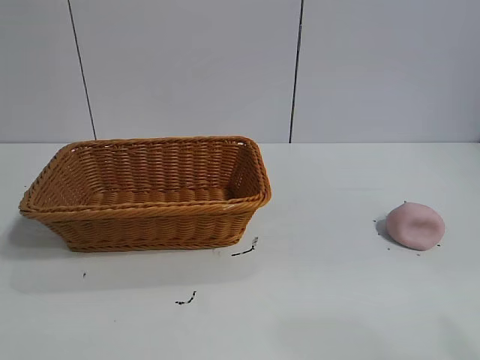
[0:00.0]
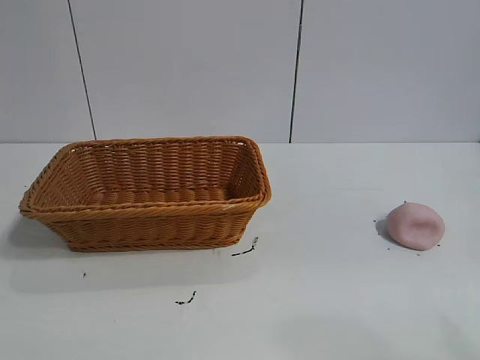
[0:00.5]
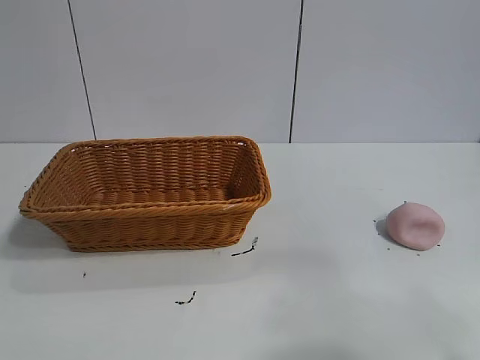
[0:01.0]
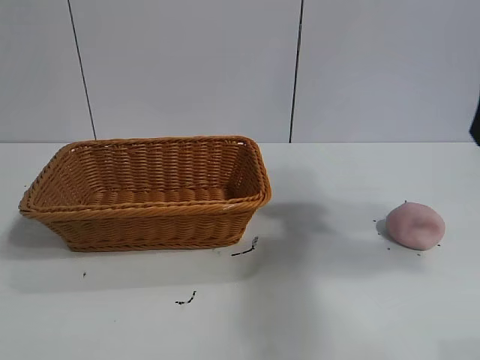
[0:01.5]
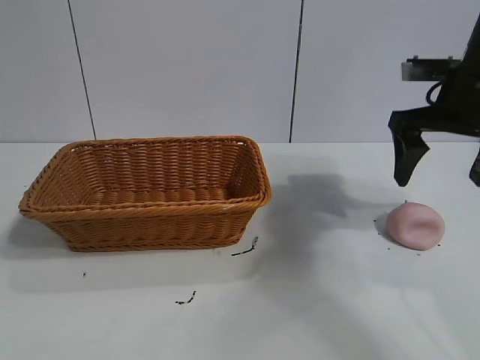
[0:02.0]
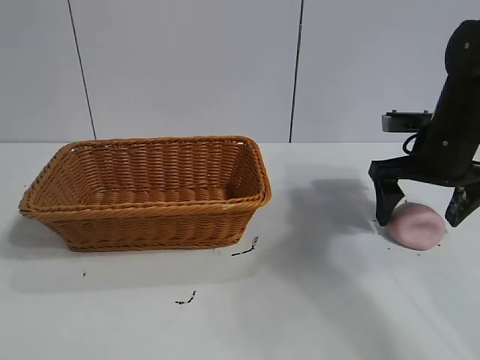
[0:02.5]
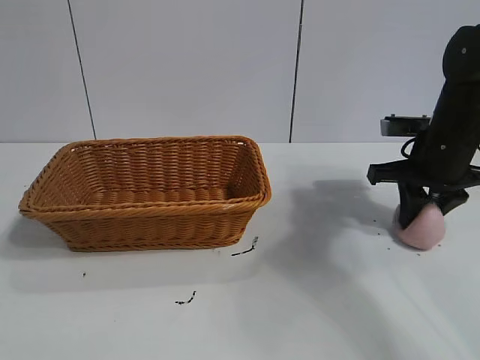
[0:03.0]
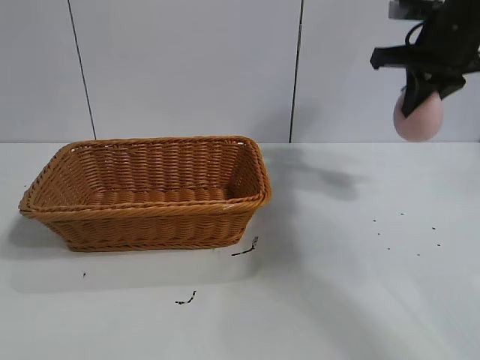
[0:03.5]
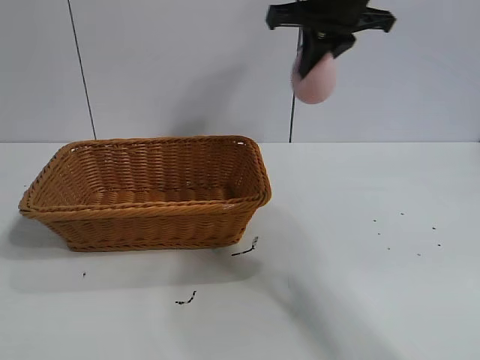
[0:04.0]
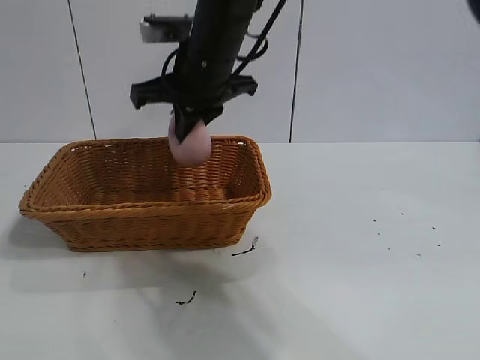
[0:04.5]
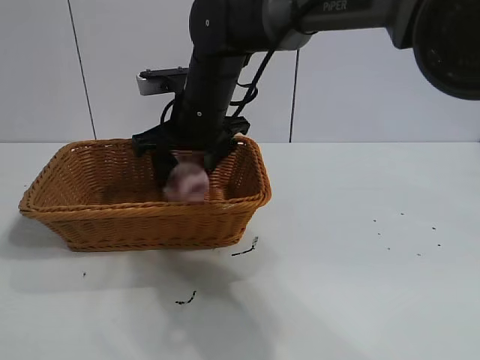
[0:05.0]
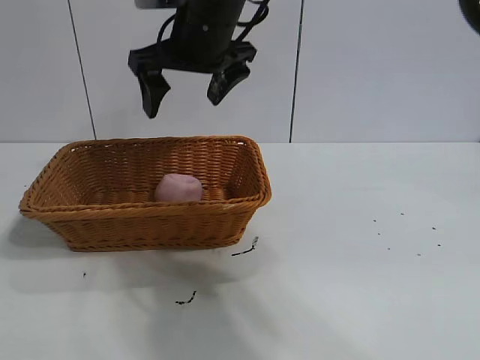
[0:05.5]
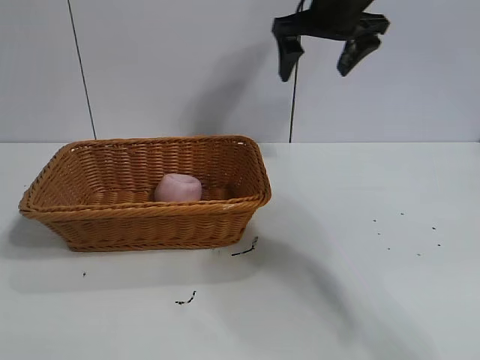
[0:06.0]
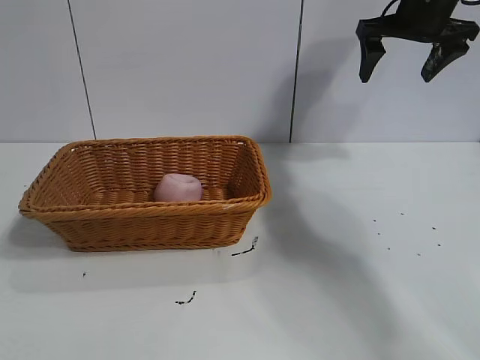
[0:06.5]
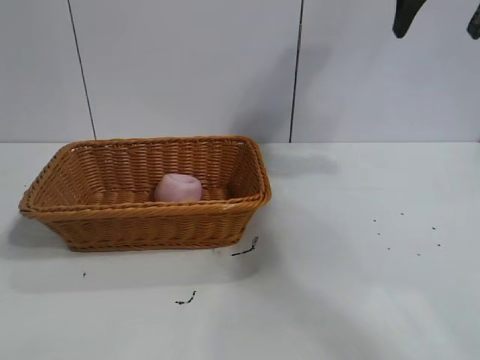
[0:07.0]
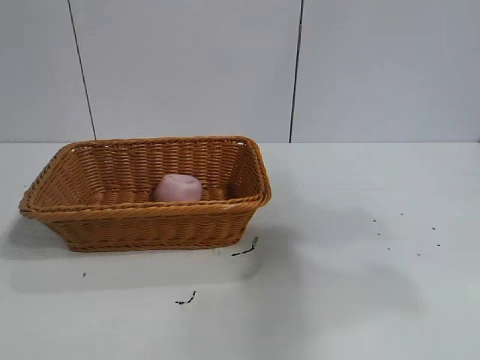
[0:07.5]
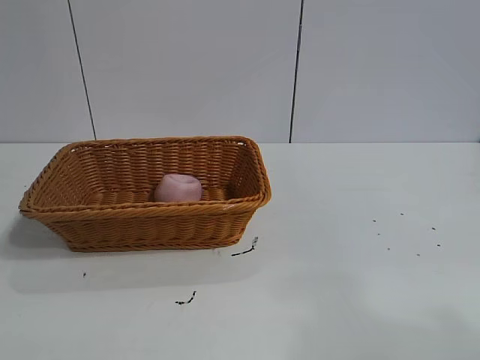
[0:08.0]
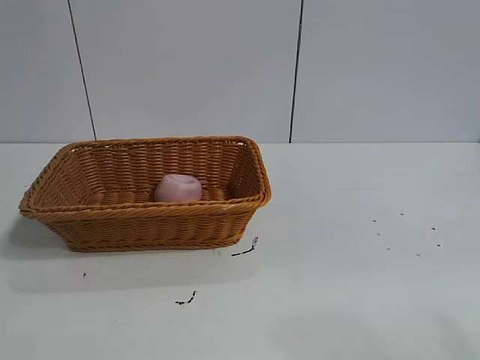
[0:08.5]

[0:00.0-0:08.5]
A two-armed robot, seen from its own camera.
Task of the whole recording: pick up the peach and put it into the basket.
Step, 0:01.0 to 0:03.0: Grasp the peach with right gripper.
Step, 0:03.5 to 0:05.0: Place the peach in the basket with right gripper.

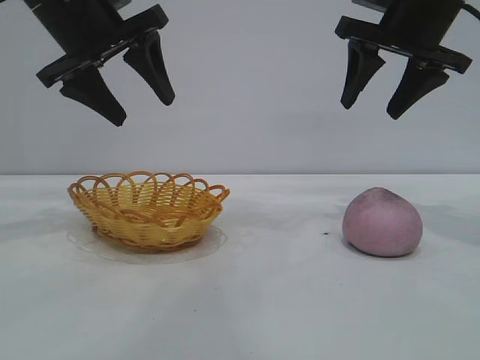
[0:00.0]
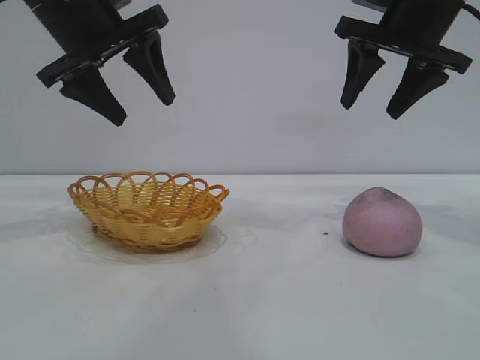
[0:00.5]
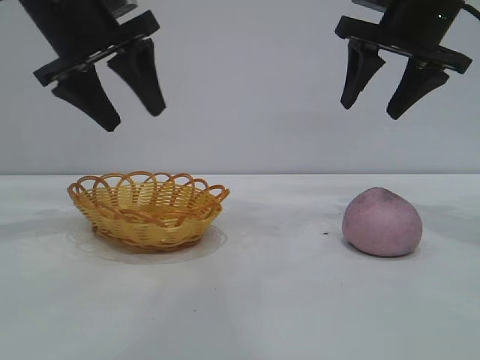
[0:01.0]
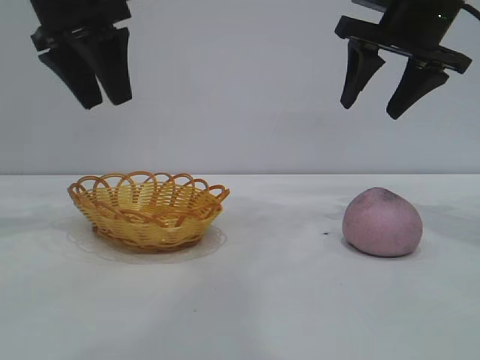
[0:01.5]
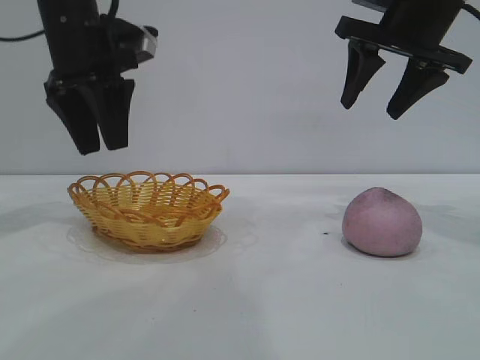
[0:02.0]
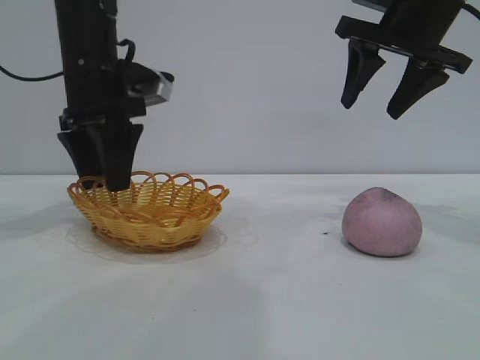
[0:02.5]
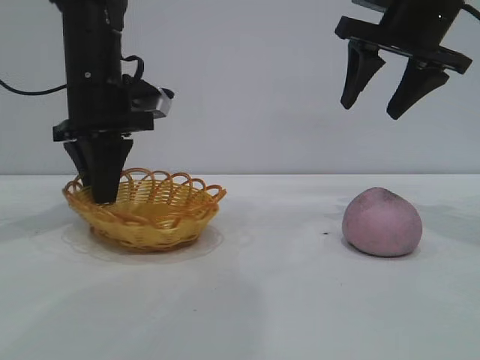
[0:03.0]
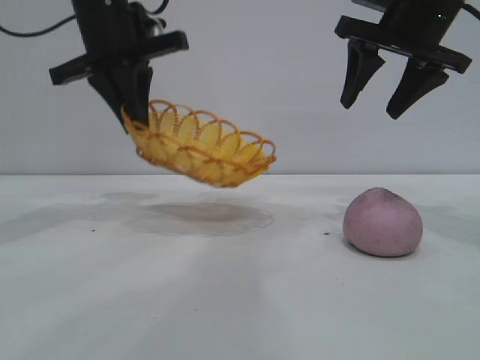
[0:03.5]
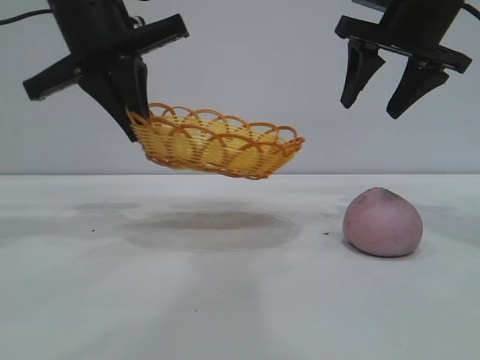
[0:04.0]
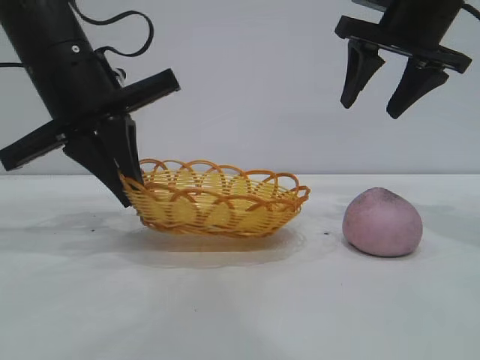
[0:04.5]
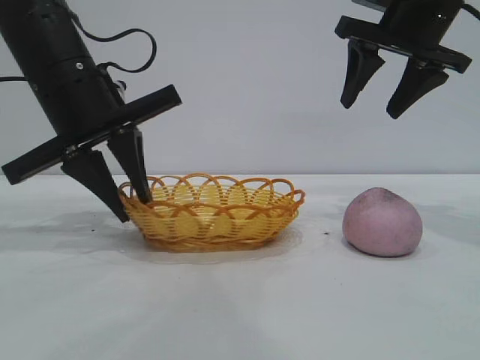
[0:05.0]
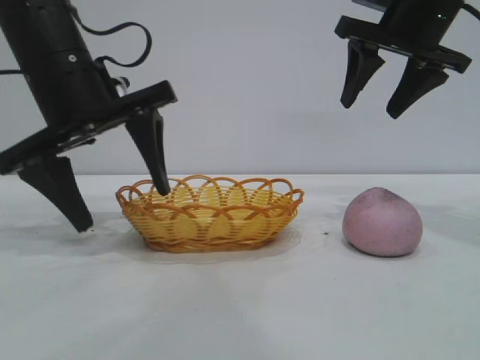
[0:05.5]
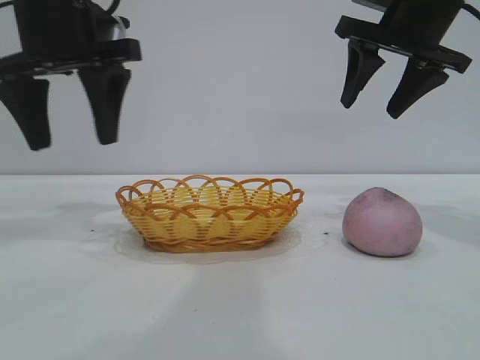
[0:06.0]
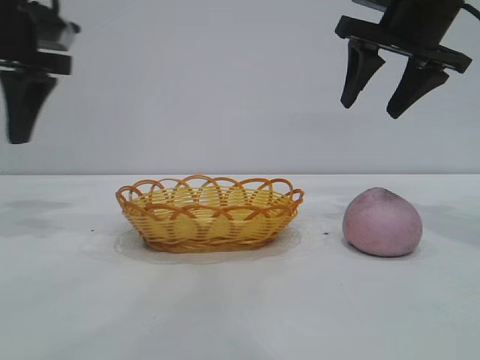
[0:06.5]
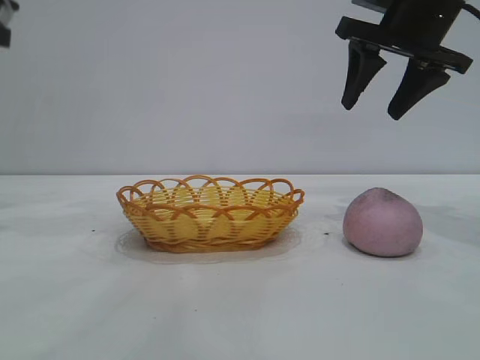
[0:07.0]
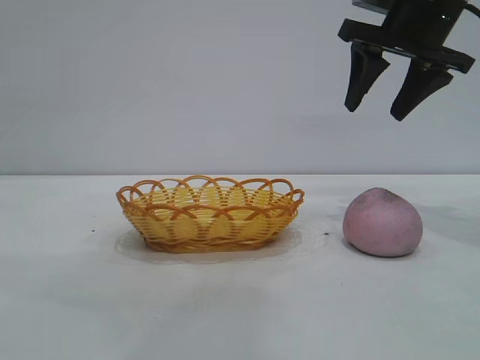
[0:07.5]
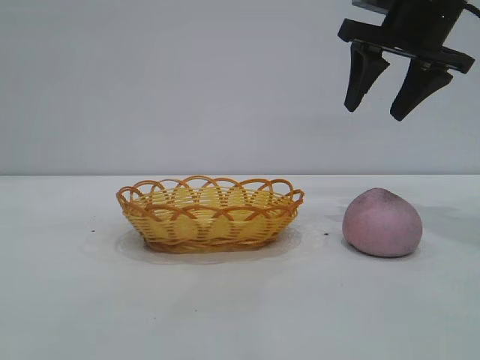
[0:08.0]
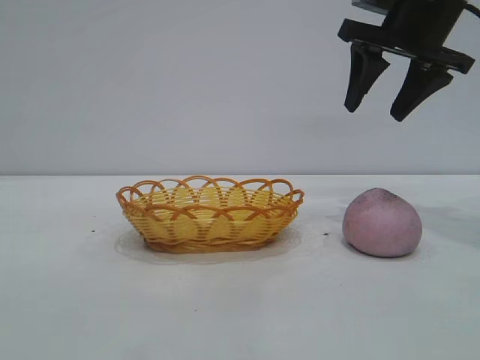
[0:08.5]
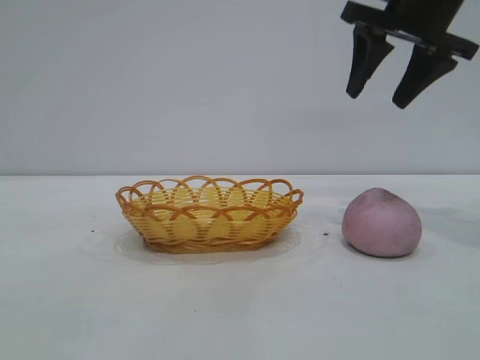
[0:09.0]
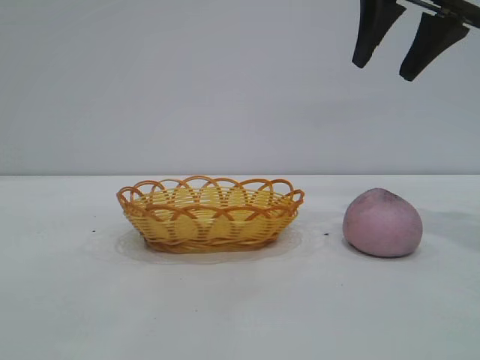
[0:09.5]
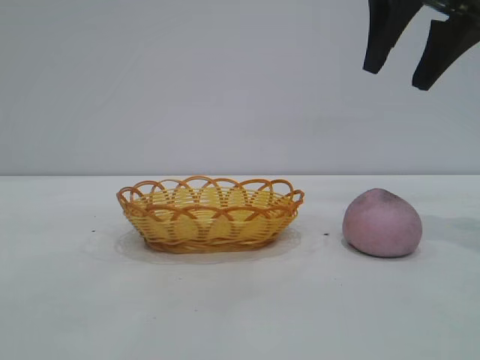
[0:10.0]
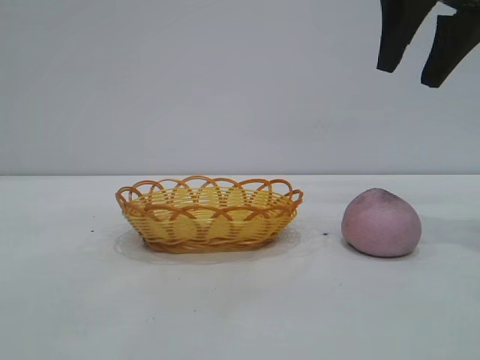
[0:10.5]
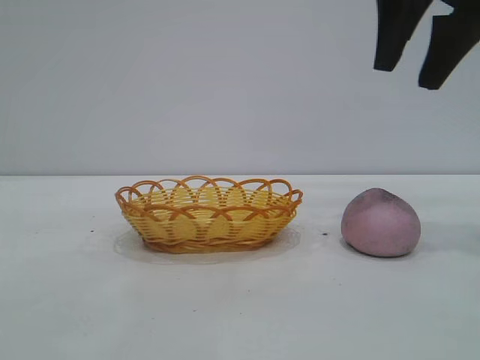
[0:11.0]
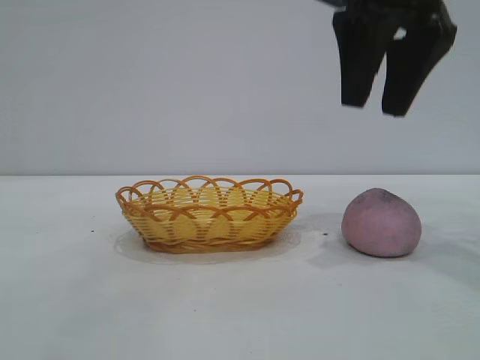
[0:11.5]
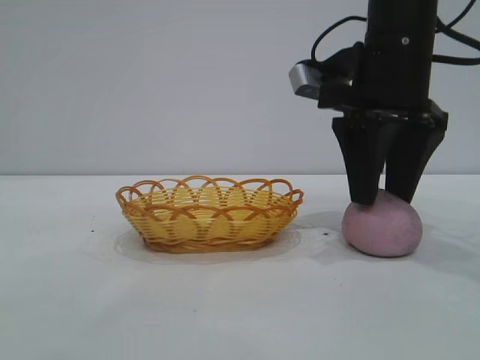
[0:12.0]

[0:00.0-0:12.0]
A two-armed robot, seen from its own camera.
Task of the whole recording: pick up the peach and put it into the basket.
Step, 0:00.0 to 0:05.5: Move the basket to the center of view.

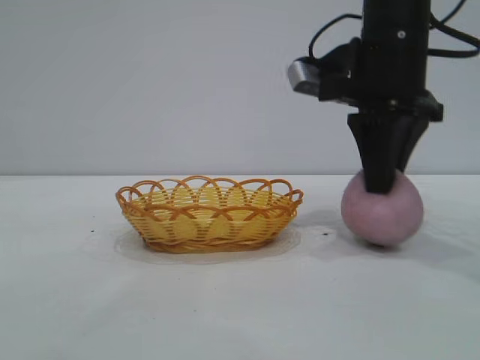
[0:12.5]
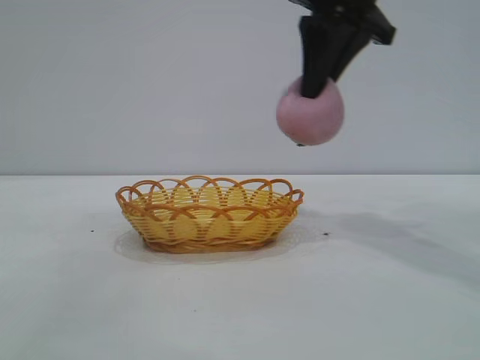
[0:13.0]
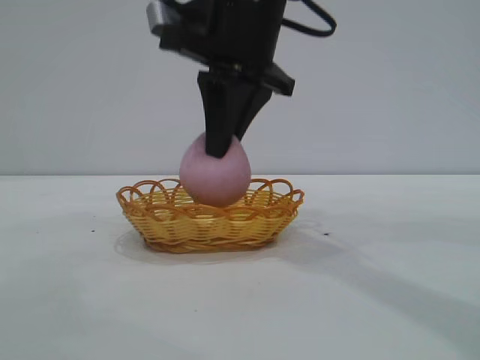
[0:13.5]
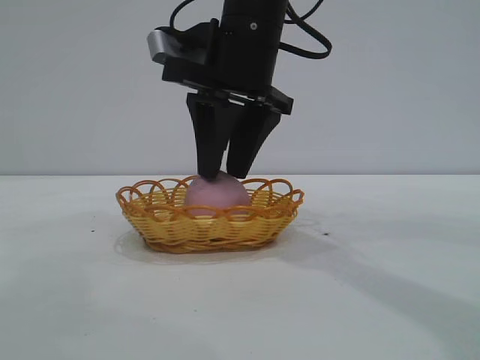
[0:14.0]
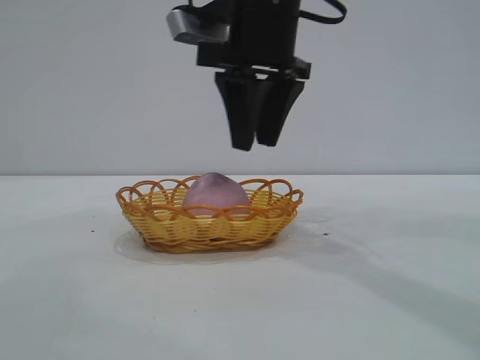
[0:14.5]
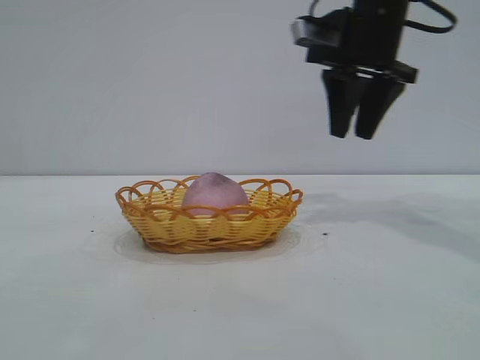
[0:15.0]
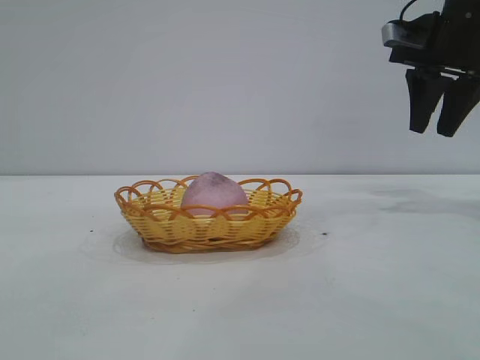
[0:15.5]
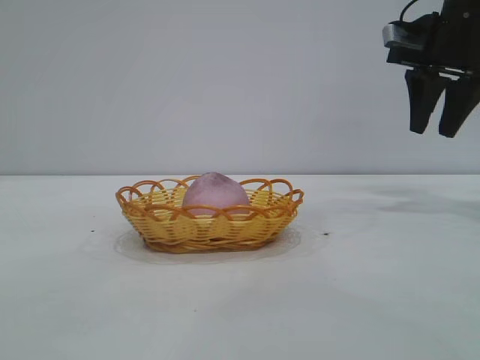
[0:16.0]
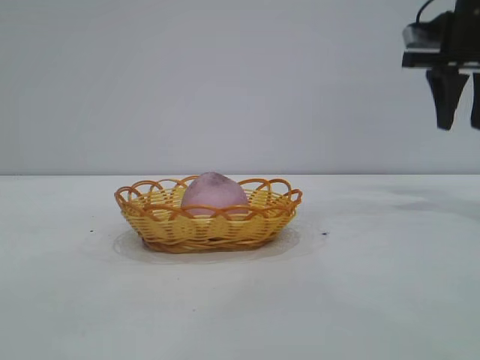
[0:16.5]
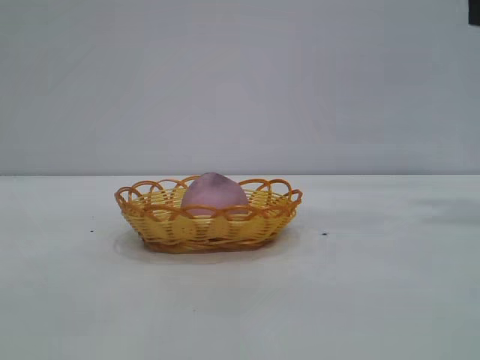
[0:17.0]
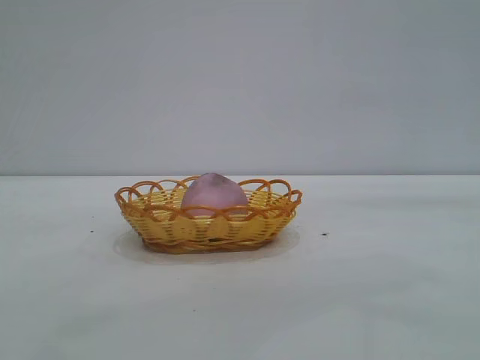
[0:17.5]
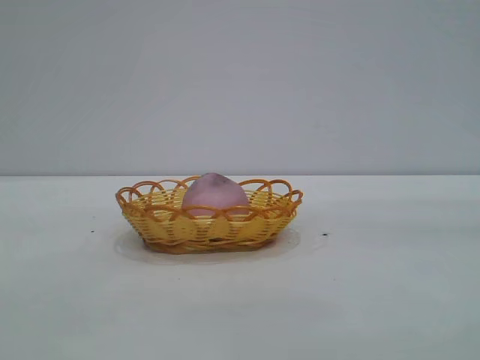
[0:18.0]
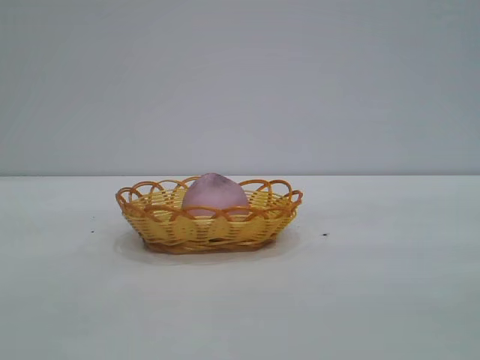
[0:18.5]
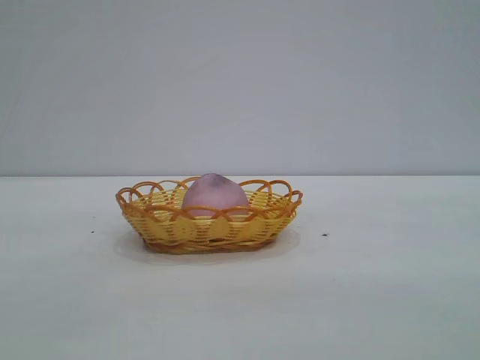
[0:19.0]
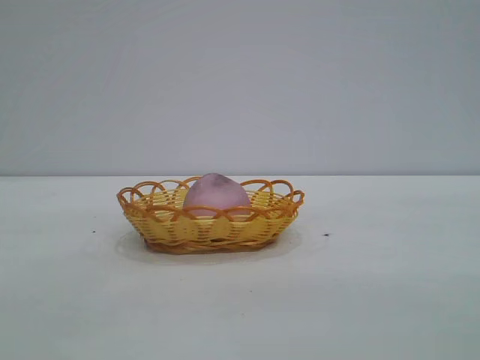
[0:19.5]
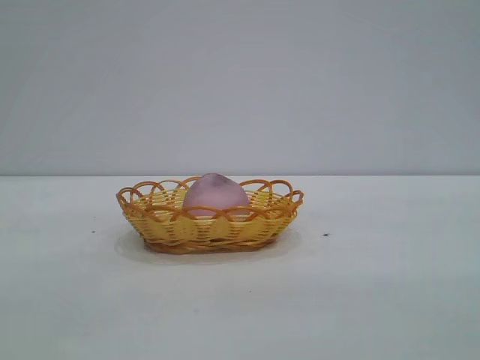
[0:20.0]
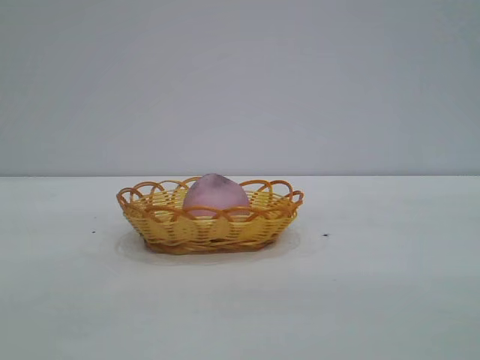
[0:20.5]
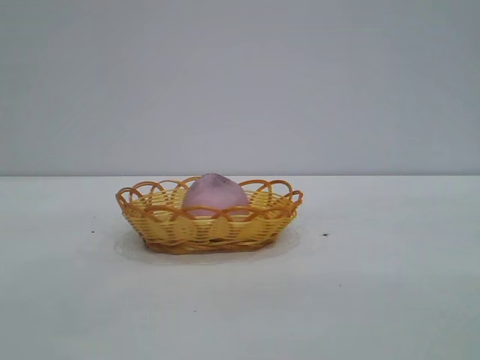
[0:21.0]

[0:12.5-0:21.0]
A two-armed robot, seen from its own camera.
Task of the whole recording: pick up the peach and put it into the basket.
Step, 0:13.0 to 0:14.5: place the peach into the basket.
